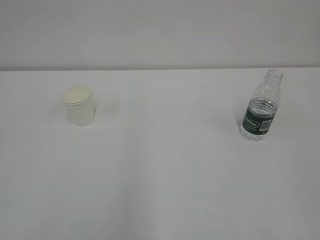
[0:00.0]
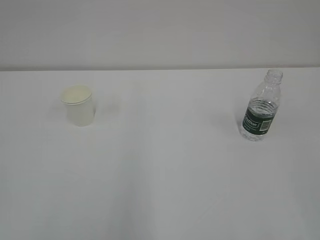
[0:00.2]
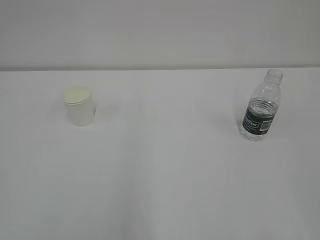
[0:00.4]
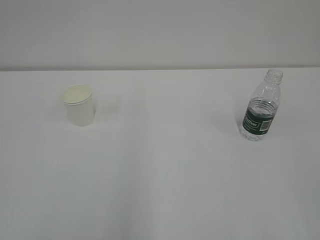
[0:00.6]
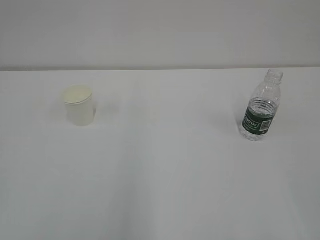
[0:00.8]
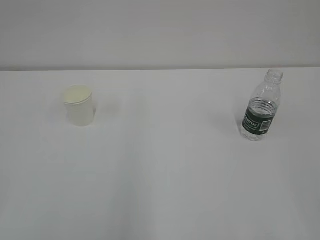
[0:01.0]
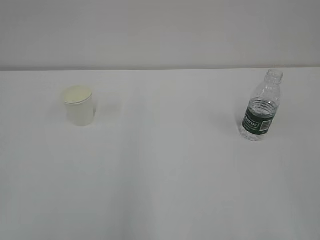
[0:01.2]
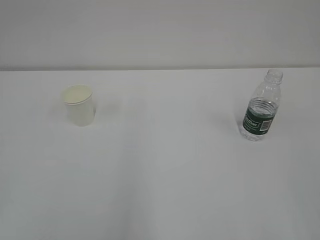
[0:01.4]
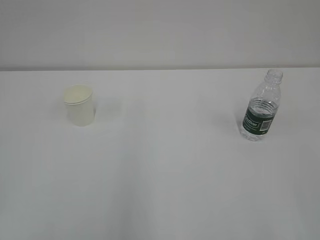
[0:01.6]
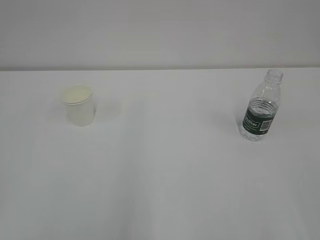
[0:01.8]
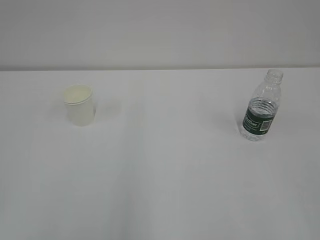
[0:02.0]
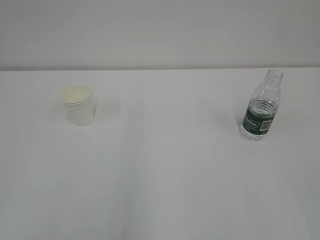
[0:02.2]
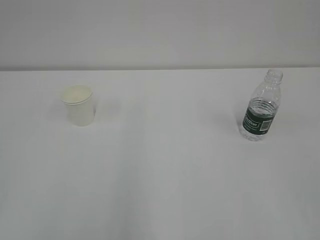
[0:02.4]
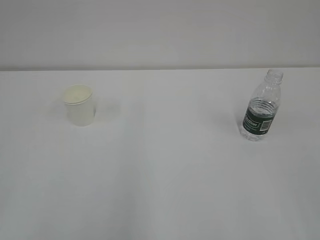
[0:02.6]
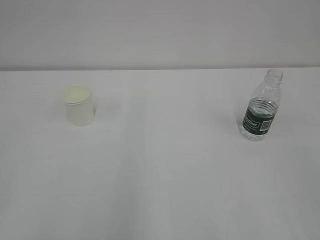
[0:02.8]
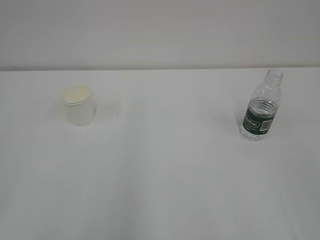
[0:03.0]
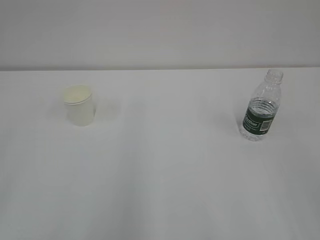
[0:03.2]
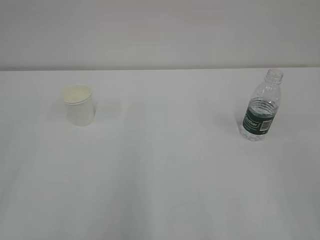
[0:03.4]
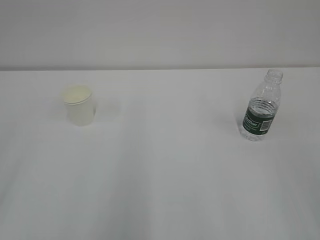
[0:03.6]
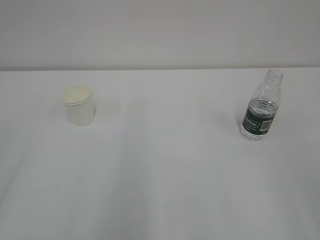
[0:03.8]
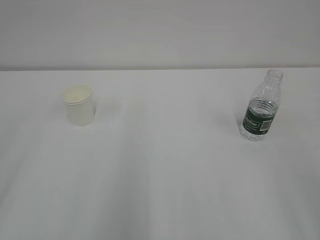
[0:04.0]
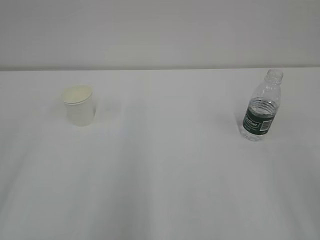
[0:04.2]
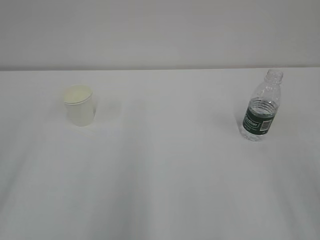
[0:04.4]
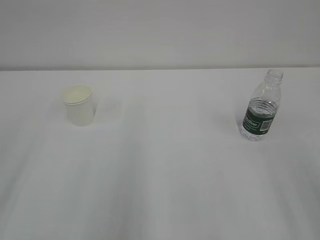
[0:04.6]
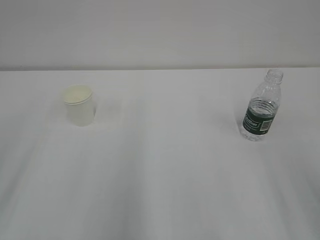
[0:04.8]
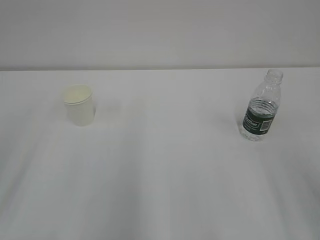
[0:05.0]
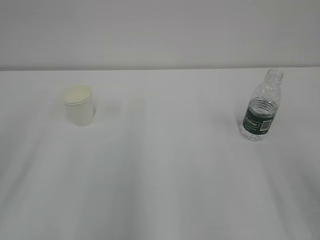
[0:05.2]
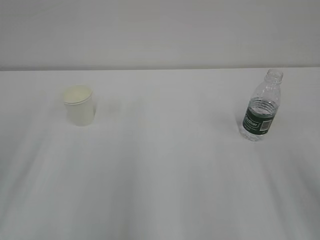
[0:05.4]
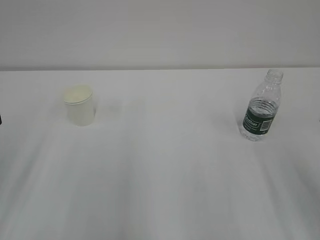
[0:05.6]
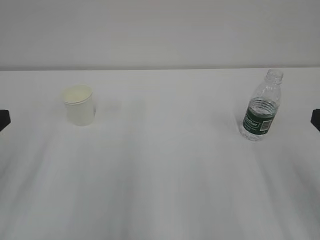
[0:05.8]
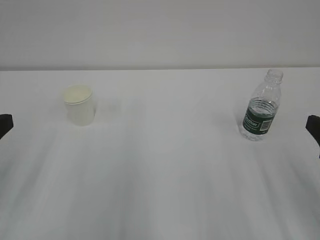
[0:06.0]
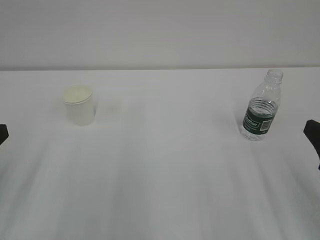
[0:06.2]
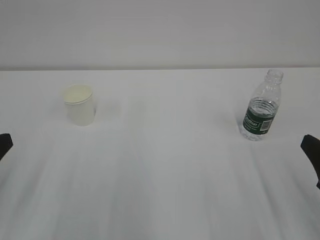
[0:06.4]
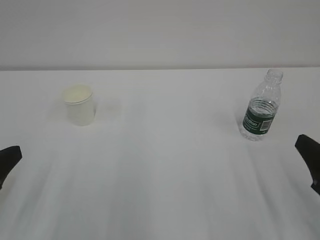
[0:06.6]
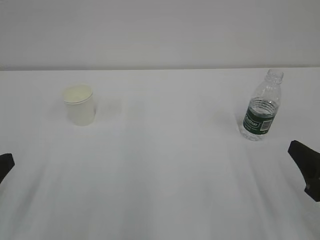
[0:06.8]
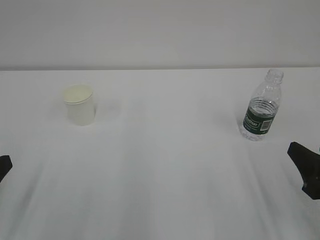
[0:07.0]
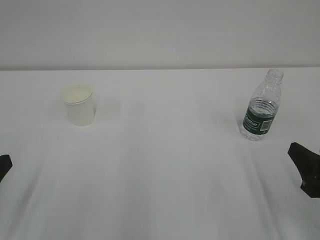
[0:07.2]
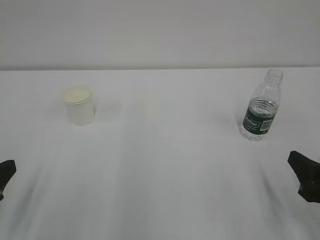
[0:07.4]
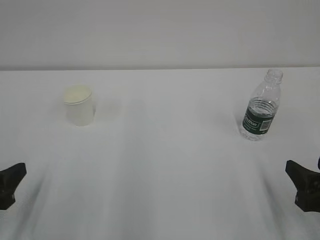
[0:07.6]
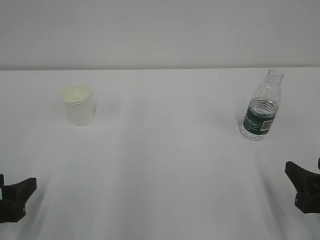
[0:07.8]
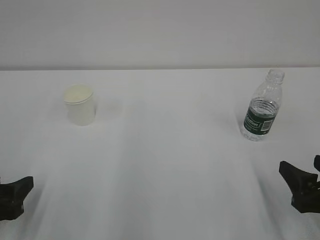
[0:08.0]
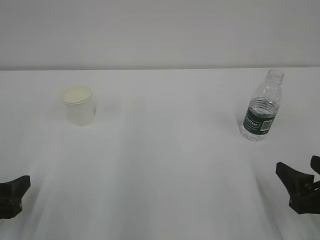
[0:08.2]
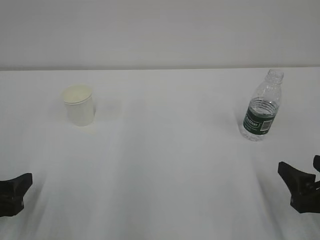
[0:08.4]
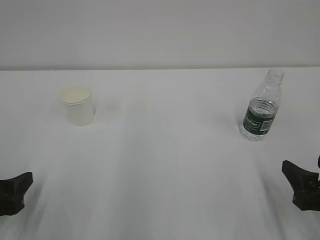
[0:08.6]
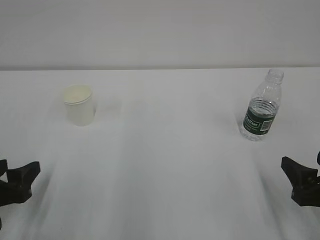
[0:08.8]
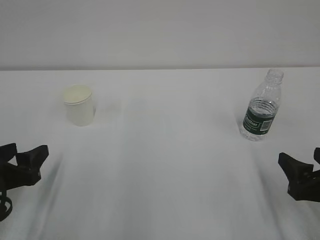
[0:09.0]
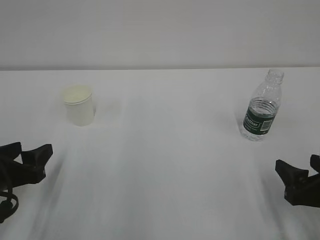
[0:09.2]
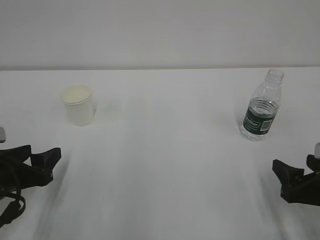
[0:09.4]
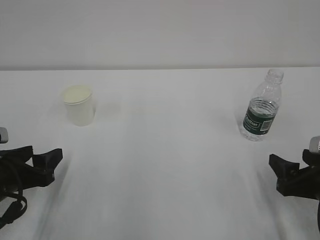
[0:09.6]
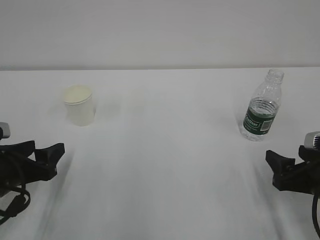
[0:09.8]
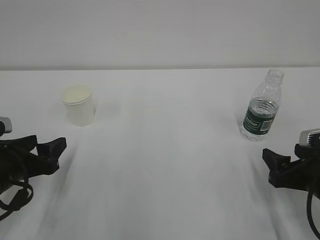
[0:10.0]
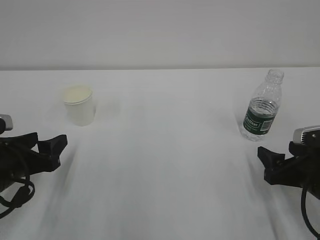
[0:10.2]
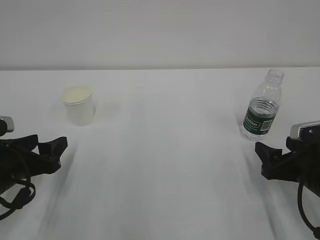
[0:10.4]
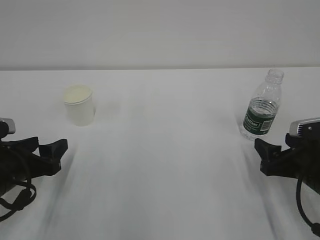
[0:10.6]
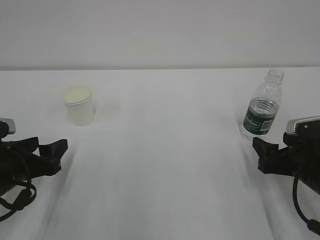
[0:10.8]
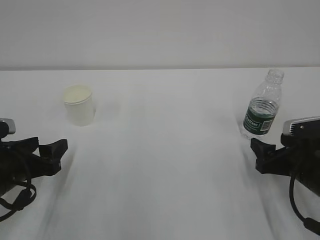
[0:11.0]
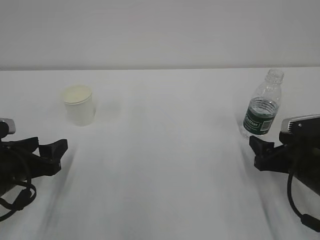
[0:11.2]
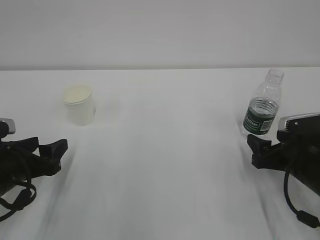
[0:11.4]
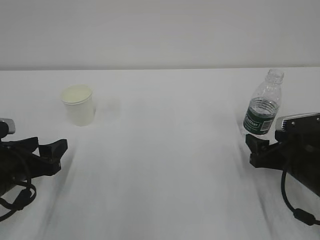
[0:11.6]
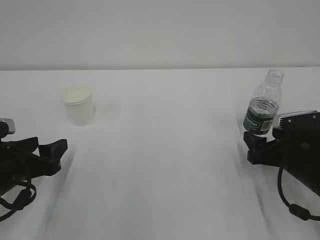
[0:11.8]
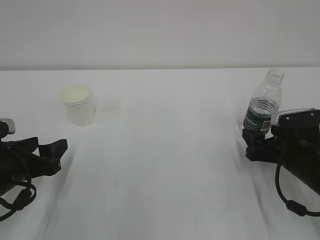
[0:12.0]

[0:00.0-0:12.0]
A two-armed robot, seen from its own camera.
0:06.0 to 0:07.6: Both grippers travel together downward, approximately 10 cm.
0:07.6 to 0:09.0: The right gripper opens.
0:09.0 to 0:10.4: The right gripper heads forward, covering about 5 cm.
0:10.4 to 0:12.0: The right gripper travels forward by about 5 cm.

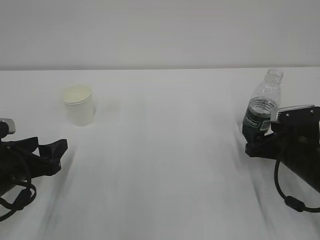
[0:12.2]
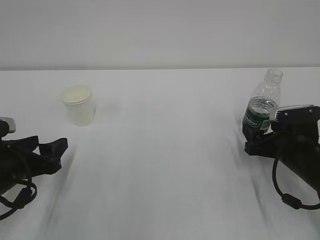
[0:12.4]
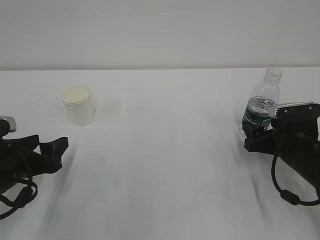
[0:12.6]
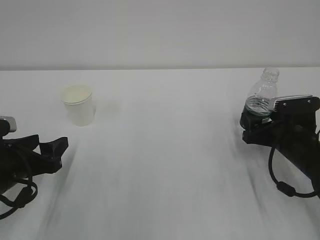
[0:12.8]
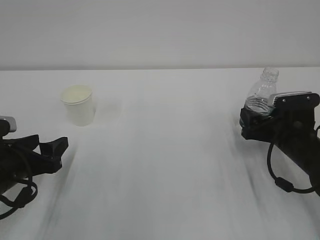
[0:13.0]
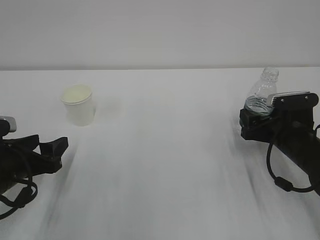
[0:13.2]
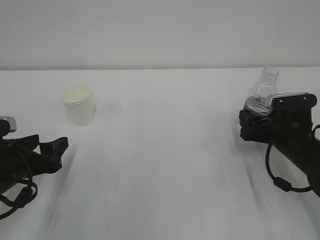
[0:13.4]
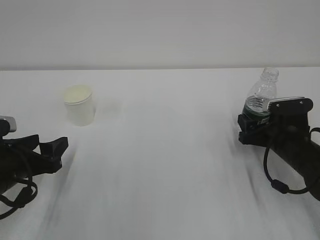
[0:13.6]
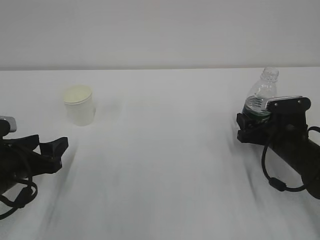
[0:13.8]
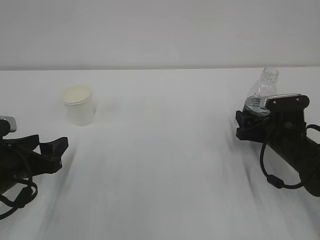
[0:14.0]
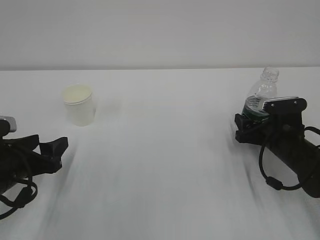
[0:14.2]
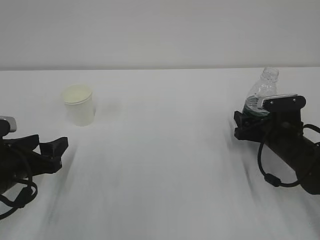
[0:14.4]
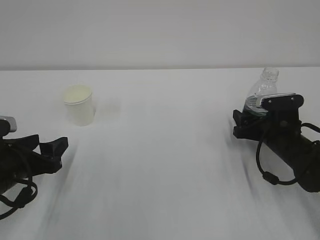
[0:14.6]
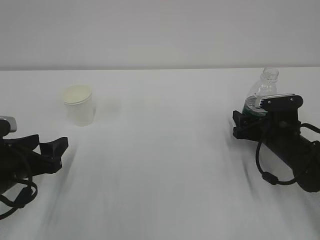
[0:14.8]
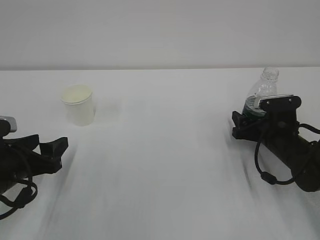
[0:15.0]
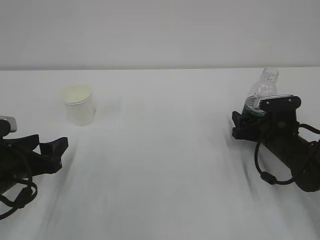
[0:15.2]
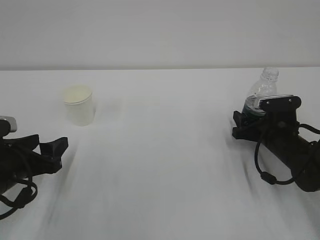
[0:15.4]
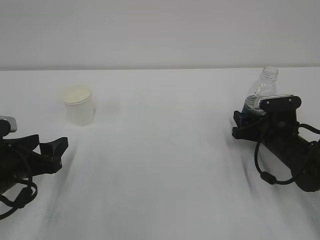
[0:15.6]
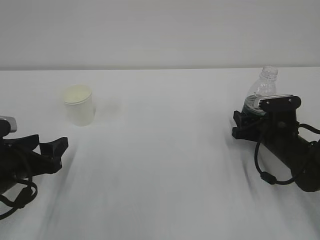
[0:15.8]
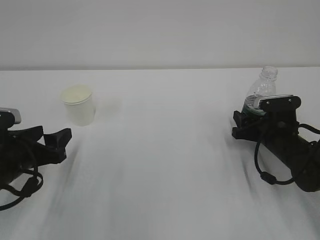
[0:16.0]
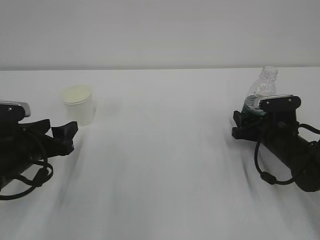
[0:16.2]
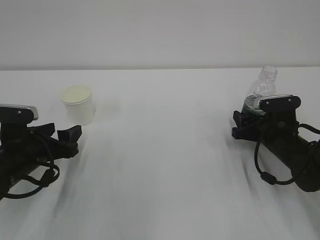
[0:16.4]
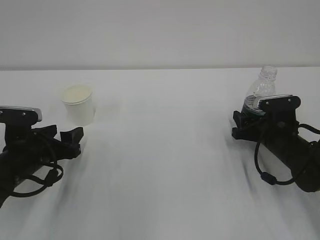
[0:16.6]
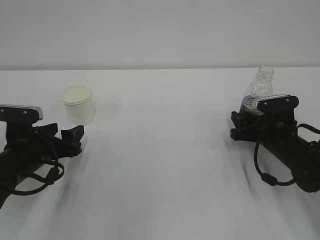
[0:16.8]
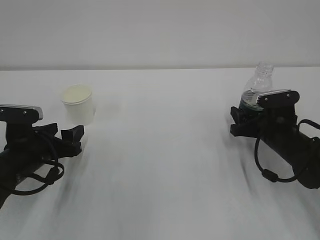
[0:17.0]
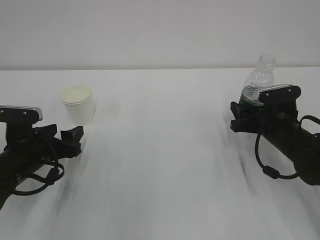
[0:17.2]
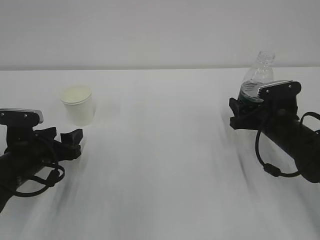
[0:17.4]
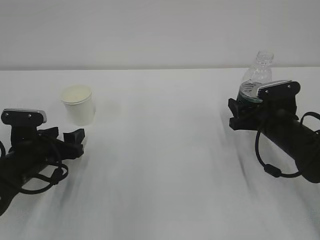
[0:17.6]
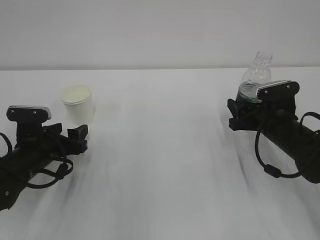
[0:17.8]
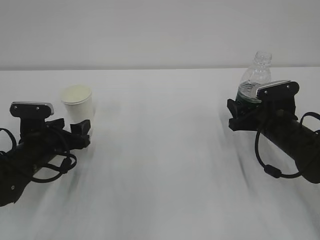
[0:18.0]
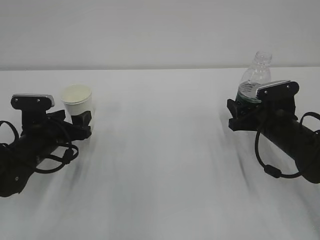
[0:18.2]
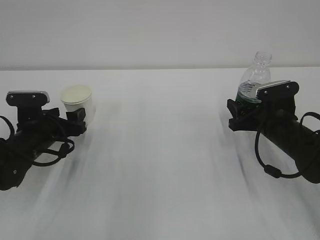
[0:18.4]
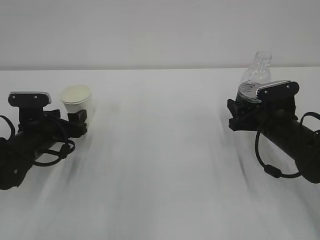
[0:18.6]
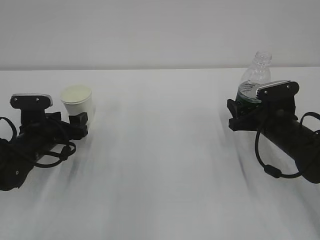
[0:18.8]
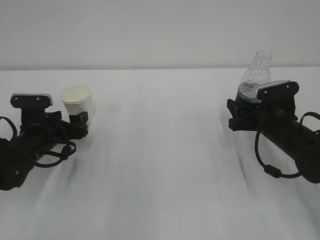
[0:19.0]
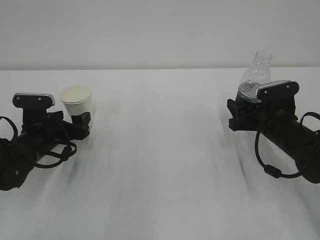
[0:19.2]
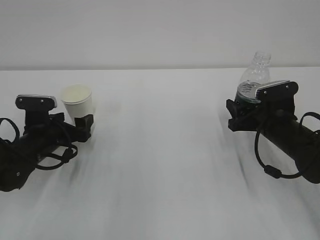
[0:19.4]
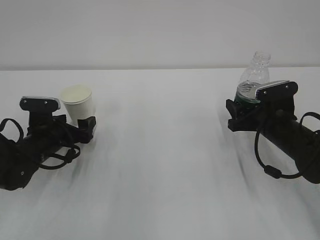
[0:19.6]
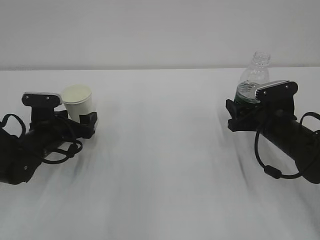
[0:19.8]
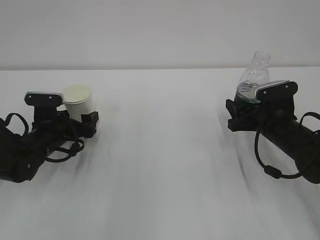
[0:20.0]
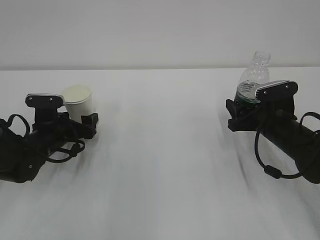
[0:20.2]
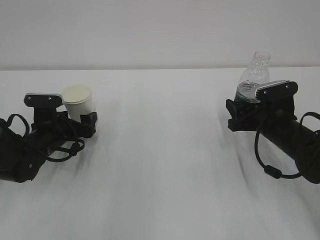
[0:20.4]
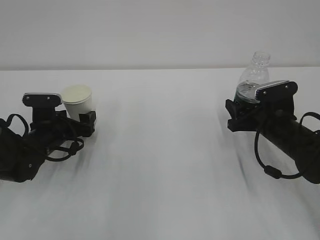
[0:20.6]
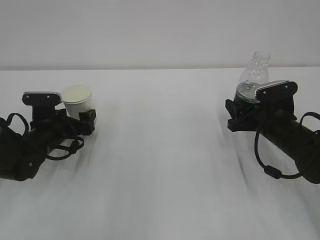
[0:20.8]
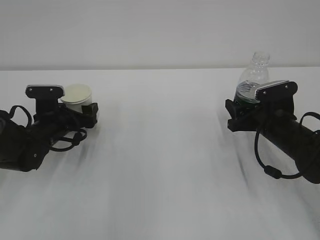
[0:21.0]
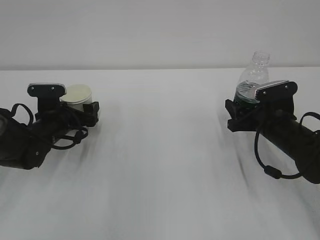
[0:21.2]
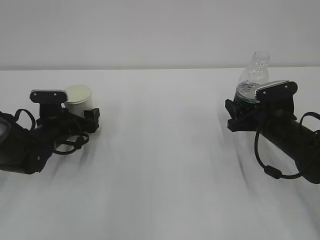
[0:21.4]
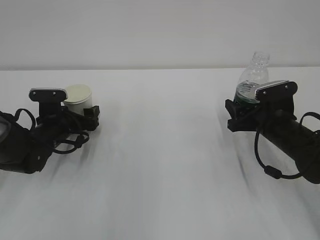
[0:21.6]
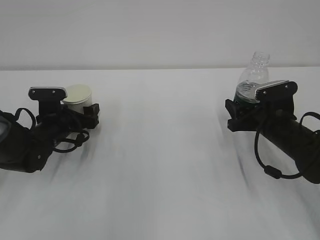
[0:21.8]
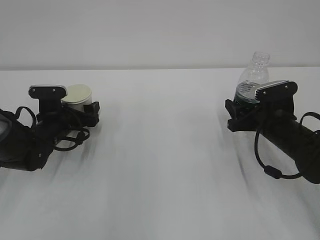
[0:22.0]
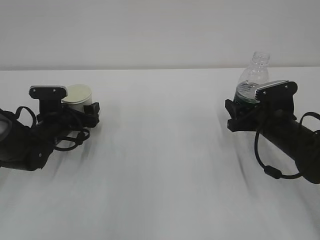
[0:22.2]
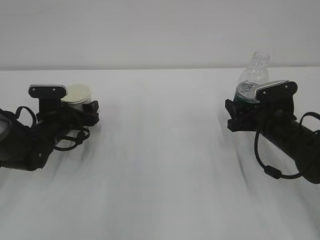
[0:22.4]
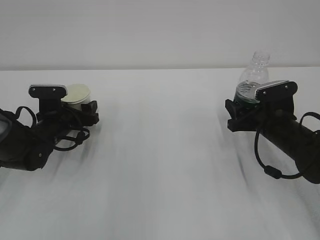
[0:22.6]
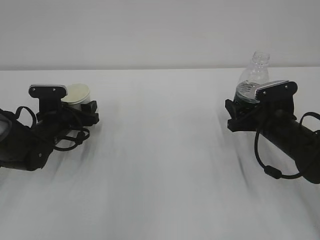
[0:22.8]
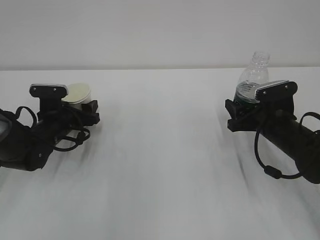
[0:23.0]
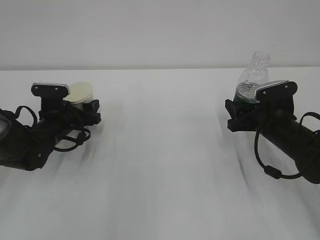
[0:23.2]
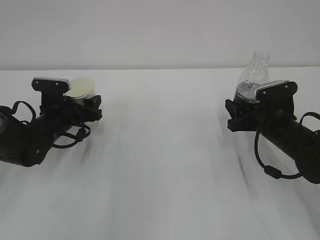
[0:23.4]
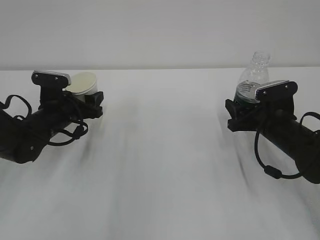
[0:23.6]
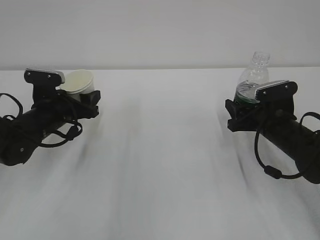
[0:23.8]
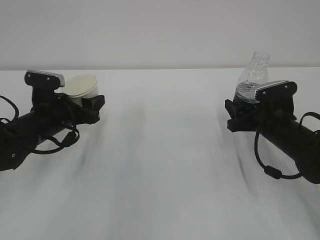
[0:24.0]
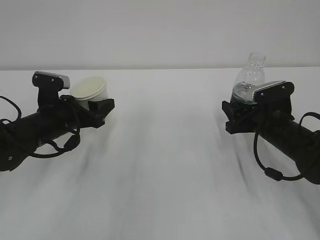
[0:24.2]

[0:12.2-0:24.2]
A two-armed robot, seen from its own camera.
0:12.2 to 0:13.8: The grippers move only a little.
0:13.8 to 0:15.2: The grippers move only a little.
0:15.2 to 0:16.6: The left gripper shifts by about 5 cm.
0:16.6 to 0:18.2: The grippers make only small movements.
0:18.2 to 0:19.8: The left gripper opens.
0:19.8 to 0:21.2: The grippers make only small movements.
0:21.2 to 0:22.6: The left gripper closes.
0:22.6 to 0:24.2: The left gripper travels upward by approximately 5 cm.
